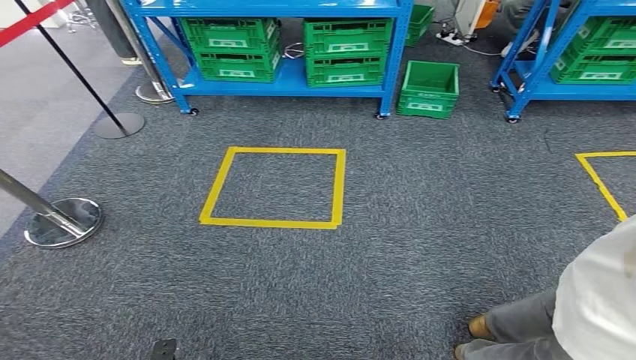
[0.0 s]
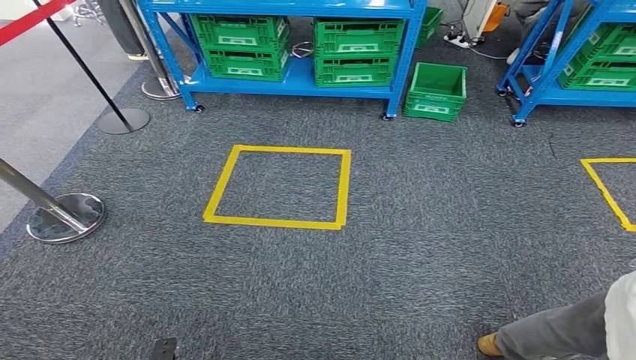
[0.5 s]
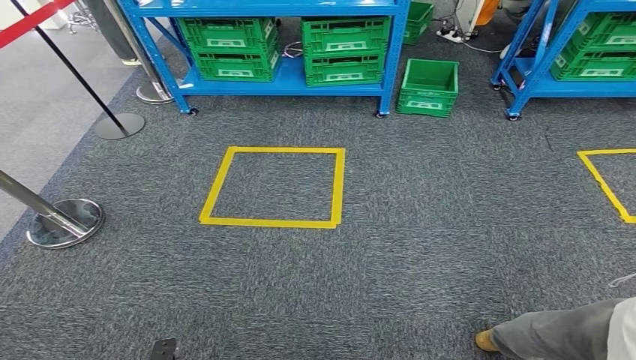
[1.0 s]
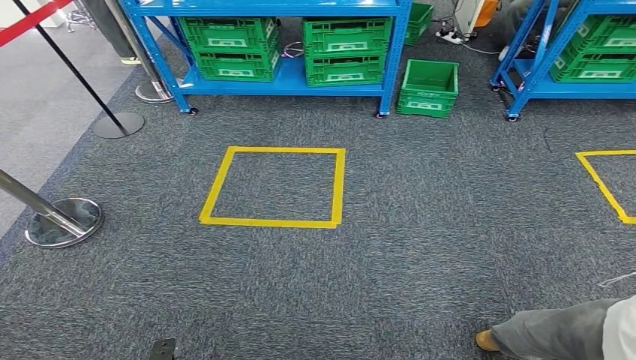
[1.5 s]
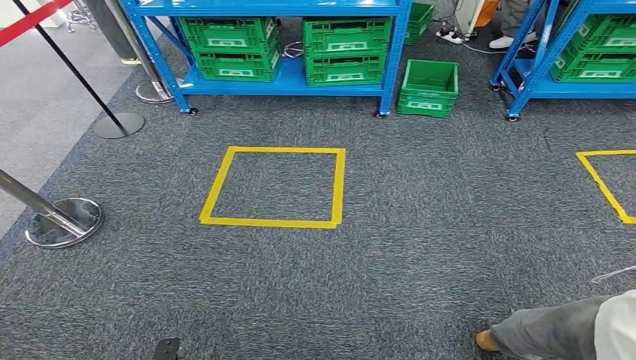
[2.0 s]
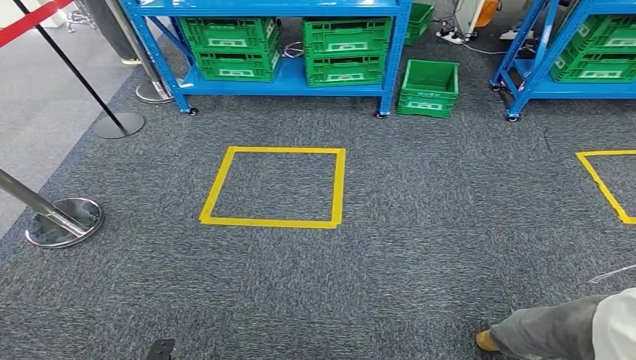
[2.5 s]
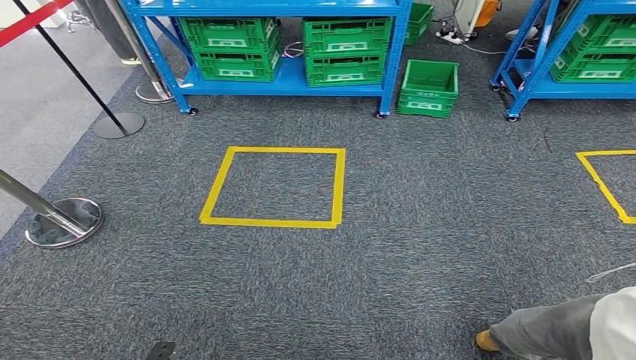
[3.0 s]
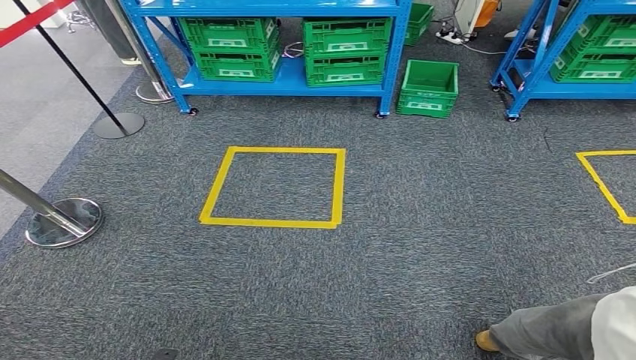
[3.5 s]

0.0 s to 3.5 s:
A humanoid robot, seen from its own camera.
Step, 0.0 to 3.5 s: Move to the initial position at the workbench.
0.0 to 2.0 s: The two hands keep their place.
